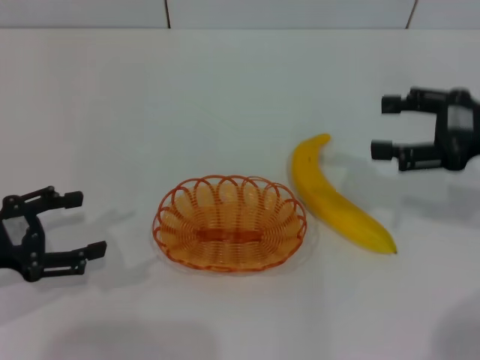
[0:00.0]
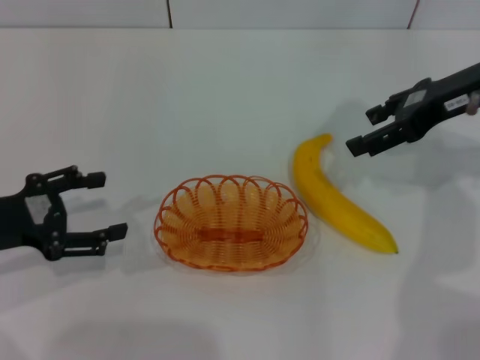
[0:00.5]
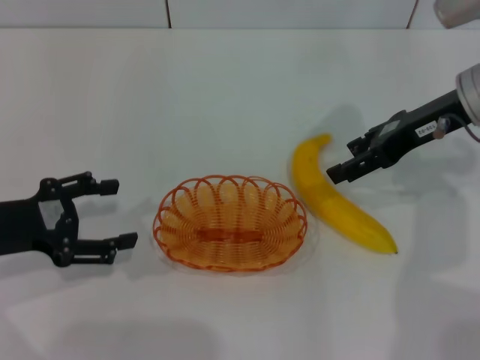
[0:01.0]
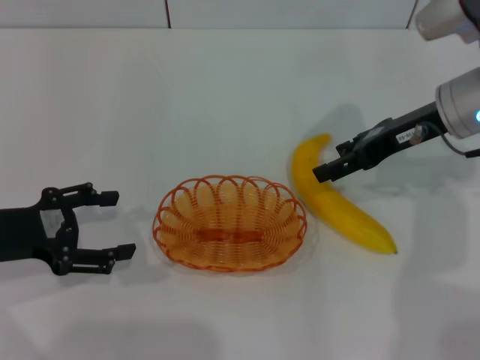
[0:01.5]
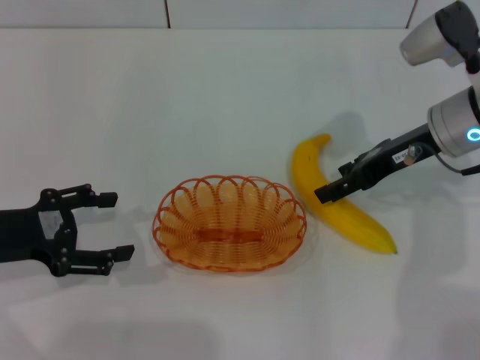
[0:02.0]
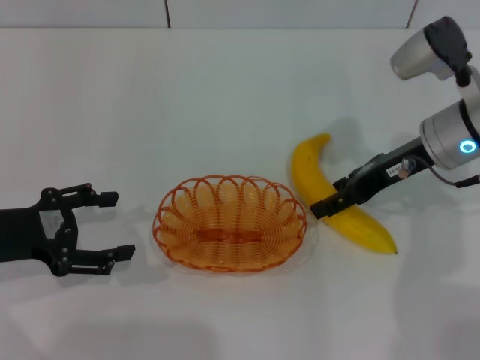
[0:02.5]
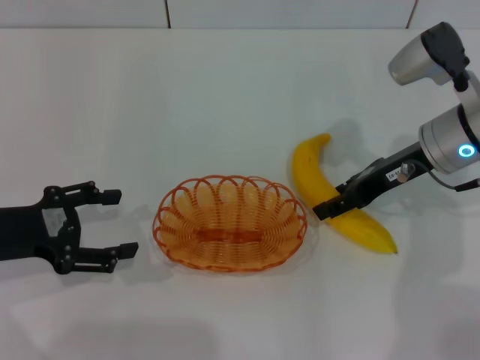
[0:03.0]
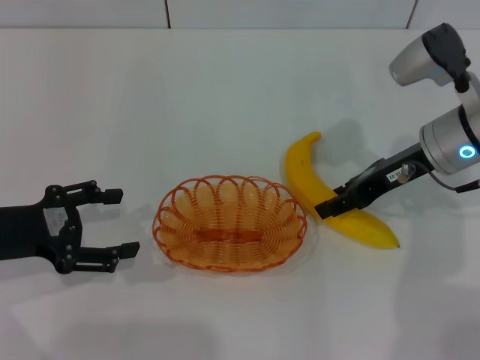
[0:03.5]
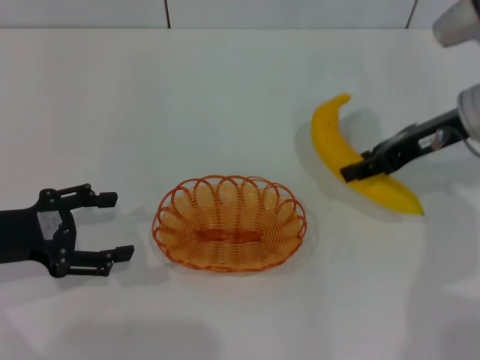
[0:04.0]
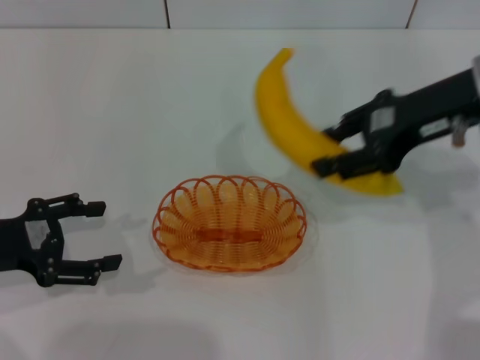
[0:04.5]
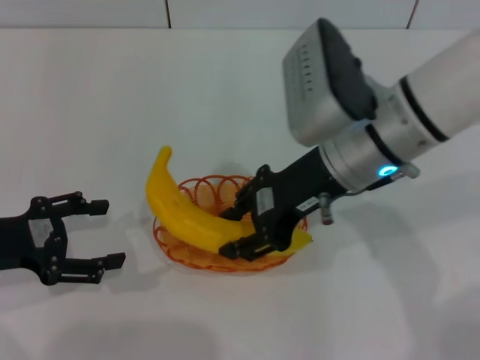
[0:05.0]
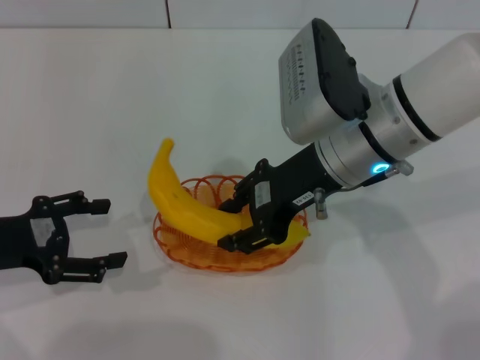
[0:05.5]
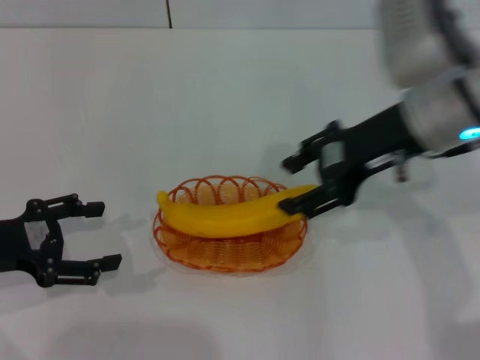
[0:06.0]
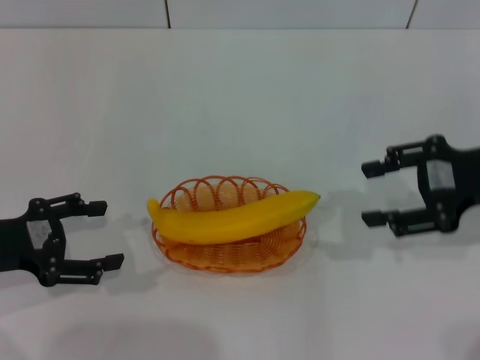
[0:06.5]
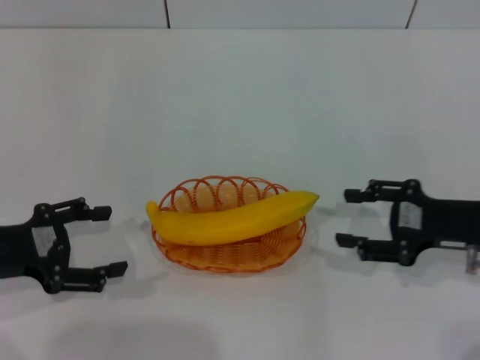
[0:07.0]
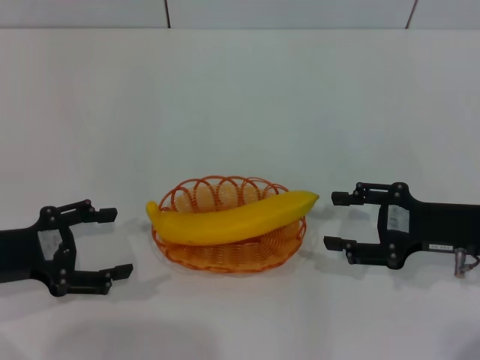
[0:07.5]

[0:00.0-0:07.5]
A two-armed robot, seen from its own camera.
Step, 0:00.0 to 0:03.5: Pick up the banana with the right gripper.
Step, 0:04.0 to 0:05.5: Place the banana into the basket with the right gripper.
0:00.0 to 0:02.0: The right gripper travels to the left and forward by approximately 10 cm.
0:02.0 to 0:04.0: The right gripper closes its fingers.
0:04.0 to 0:05.5: The right gripper is displaced to the left by roughly 15 cm.
0:05.5 to 0:07.5: The right gripper travels to the right and downward by some 20 cm, and opens its fingers.

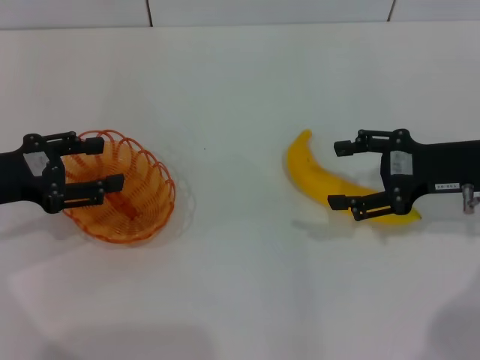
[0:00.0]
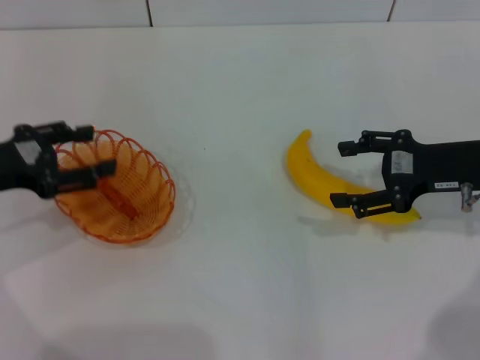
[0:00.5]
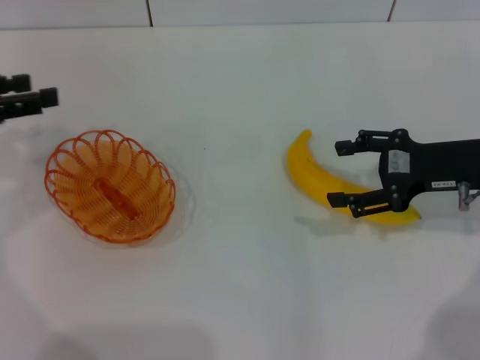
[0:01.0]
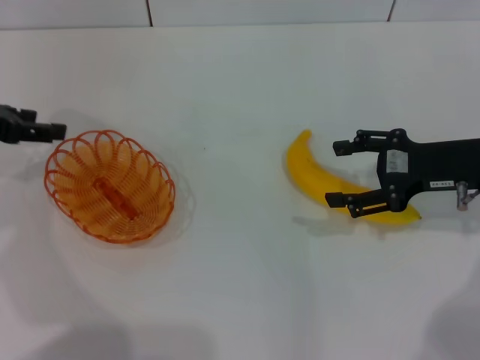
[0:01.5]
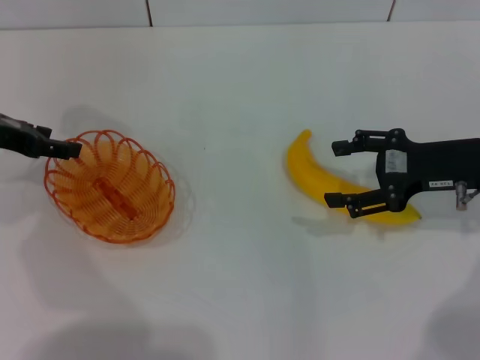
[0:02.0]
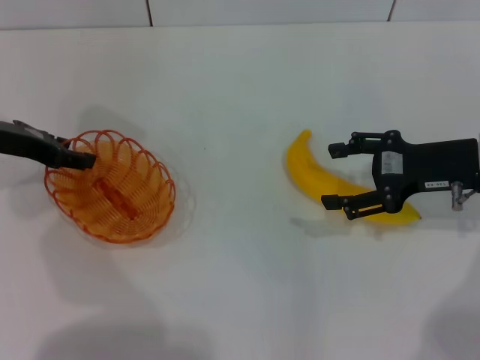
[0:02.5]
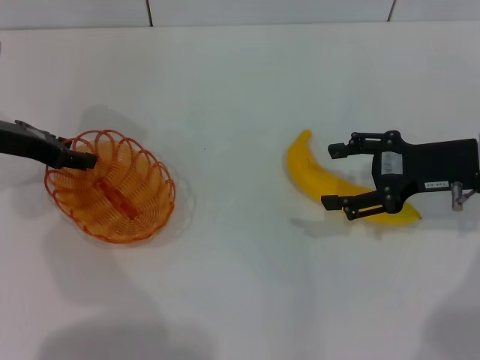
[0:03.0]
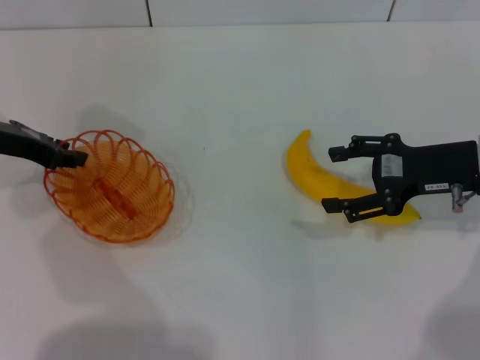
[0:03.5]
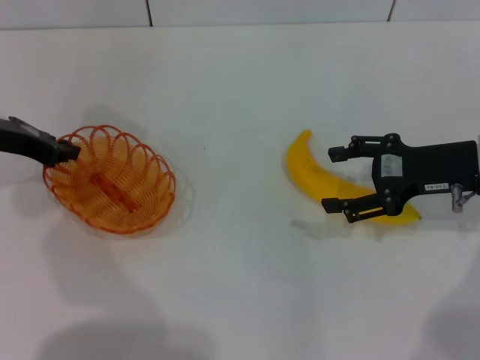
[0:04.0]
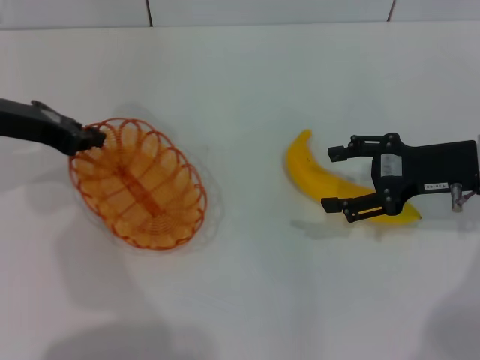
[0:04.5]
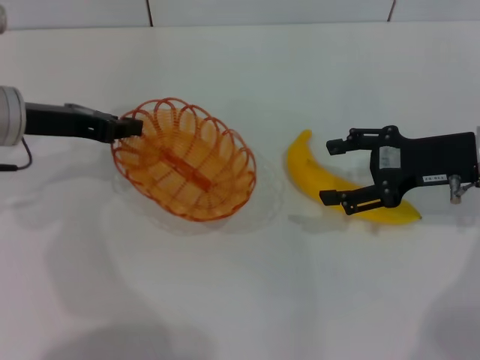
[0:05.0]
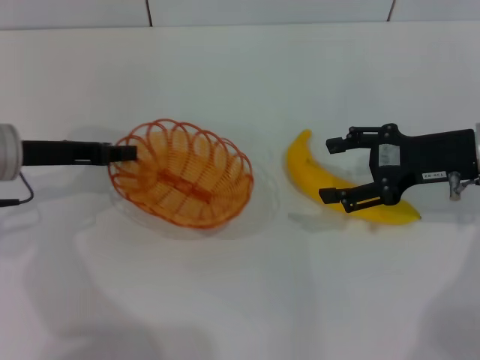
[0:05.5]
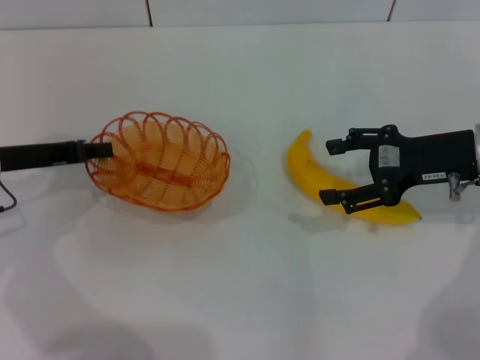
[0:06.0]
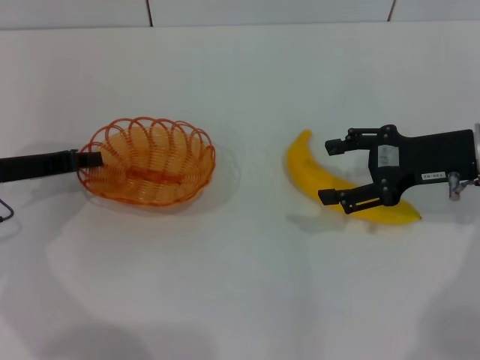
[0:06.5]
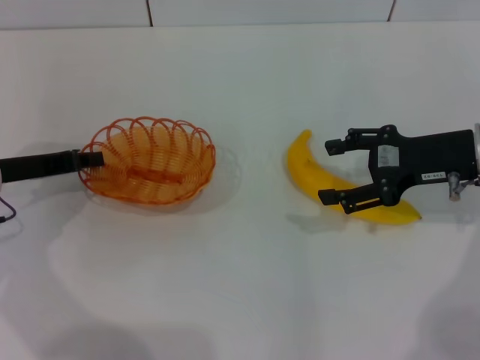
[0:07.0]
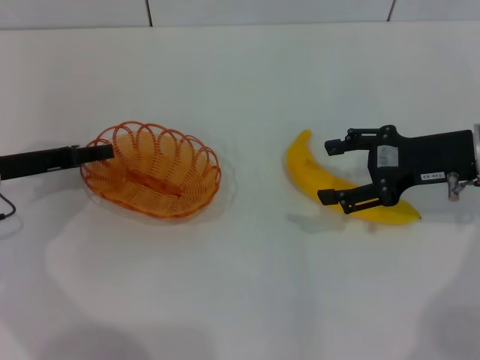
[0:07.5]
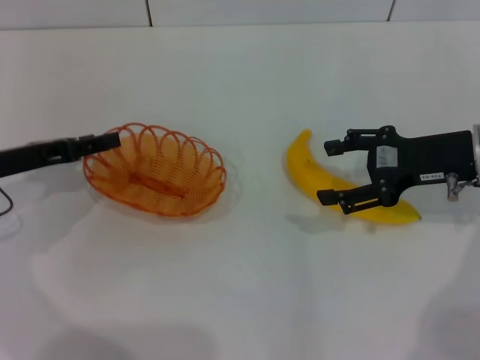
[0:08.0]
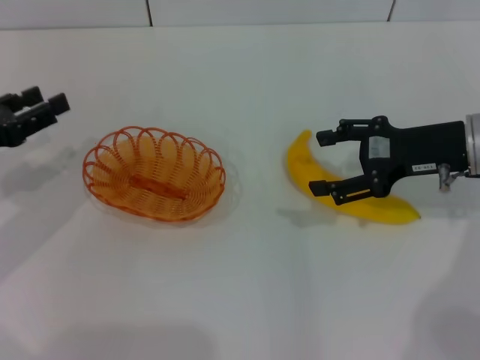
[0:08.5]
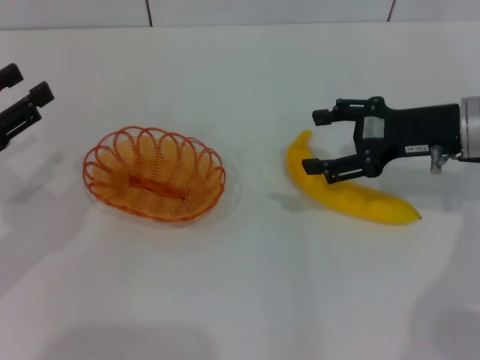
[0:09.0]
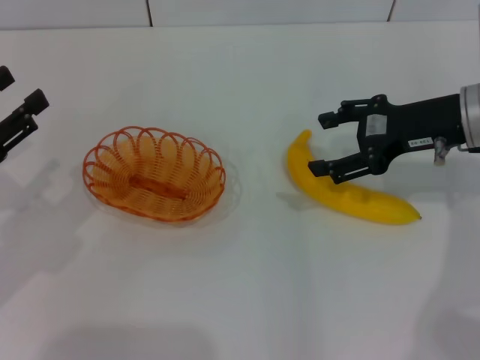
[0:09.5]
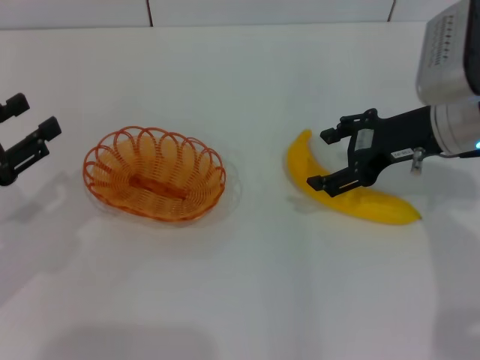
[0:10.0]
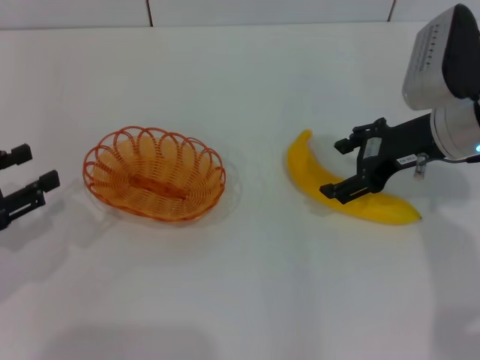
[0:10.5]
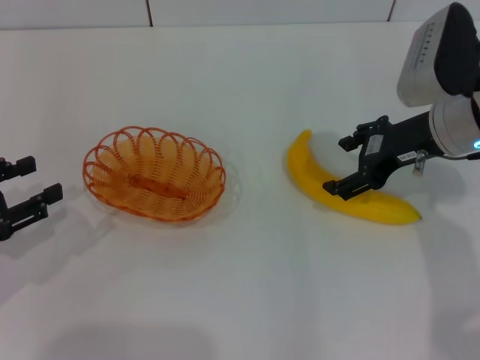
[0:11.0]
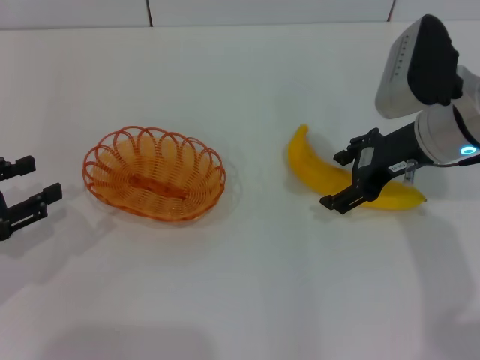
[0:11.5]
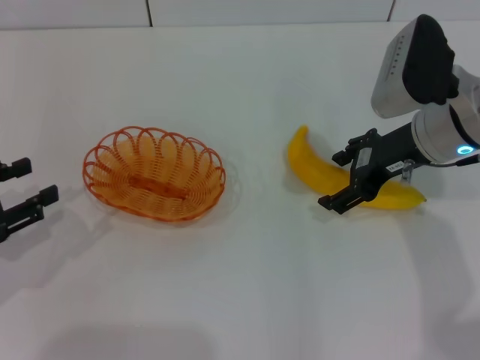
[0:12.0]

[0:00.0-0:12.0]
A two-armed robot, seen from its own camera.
Step, 0:00.0 to 0:05.5: Pick up the basket with the left gripper.
Step, 0:06.0 to 0:08.0: Place the basket in the center of view with the left gripper.
0:00.0 to 0:02.0: The left gripper shifts some 10 cm forward.
0:02.0 to 0:04.0: The left gripper closes its fingers.
0:04.0 to 0:06.0: The left gripper moves approximately 5 cm.
0:06.0 to 0:08.0: The left gripper opens.
0:08.0 to 0:10.0: The right gripper shifts by approximately 5 cm; the left gripper heads backward, covering roughly 5 cm.
0:10.0 to 0:12.0: The grippers move only a little.

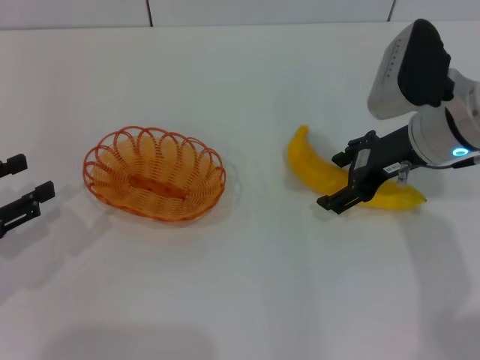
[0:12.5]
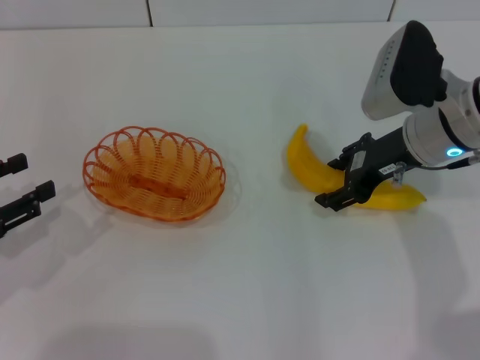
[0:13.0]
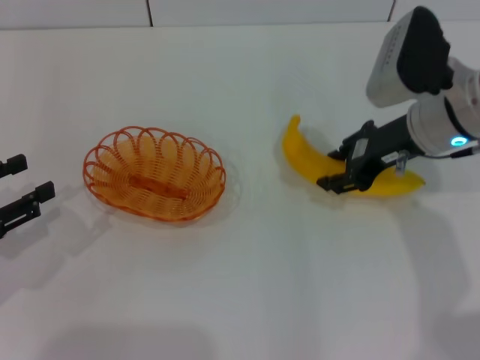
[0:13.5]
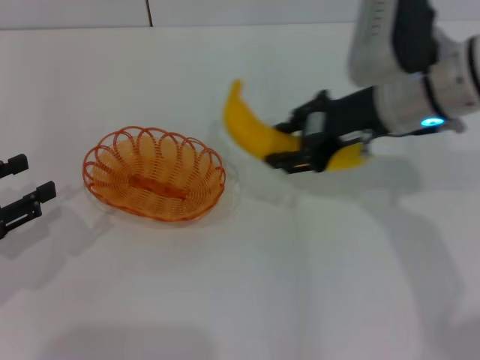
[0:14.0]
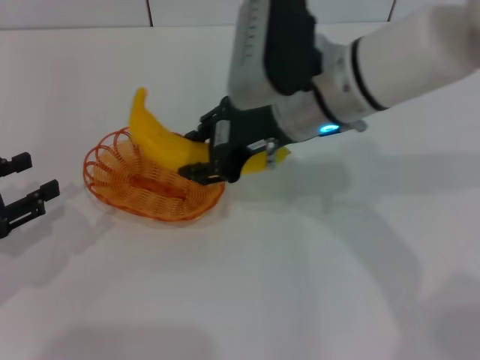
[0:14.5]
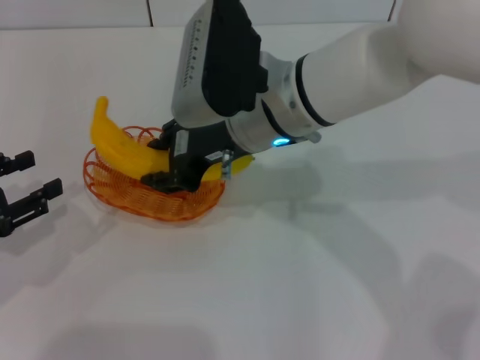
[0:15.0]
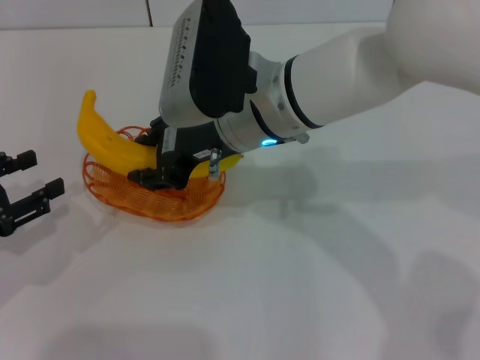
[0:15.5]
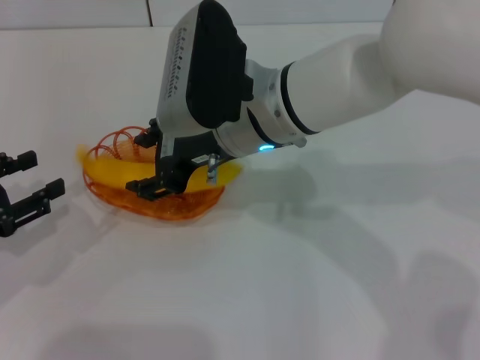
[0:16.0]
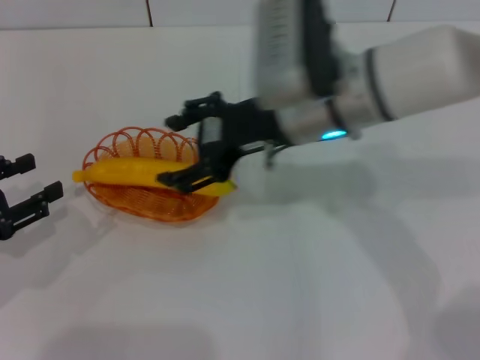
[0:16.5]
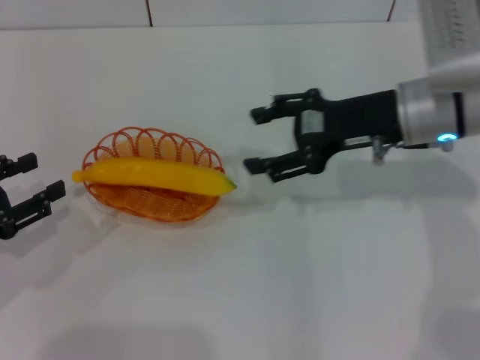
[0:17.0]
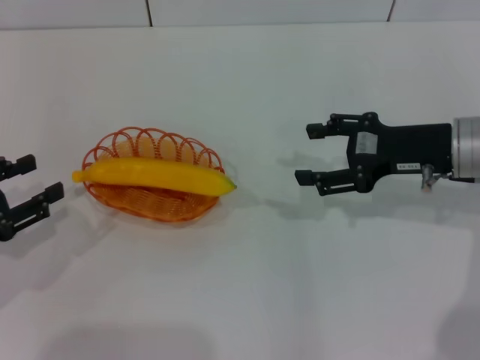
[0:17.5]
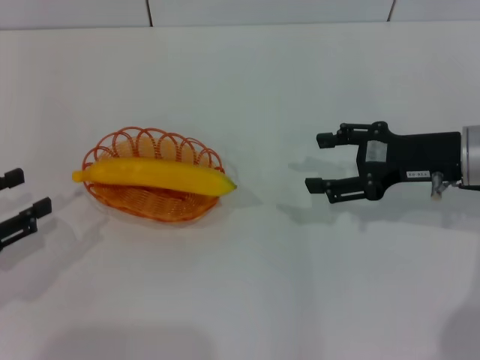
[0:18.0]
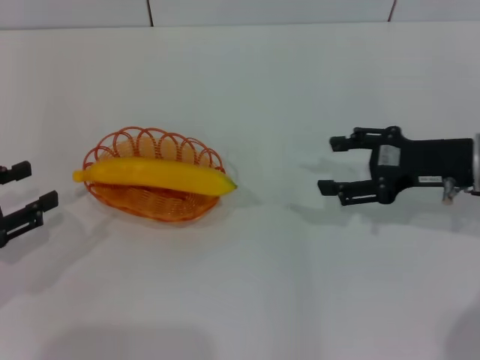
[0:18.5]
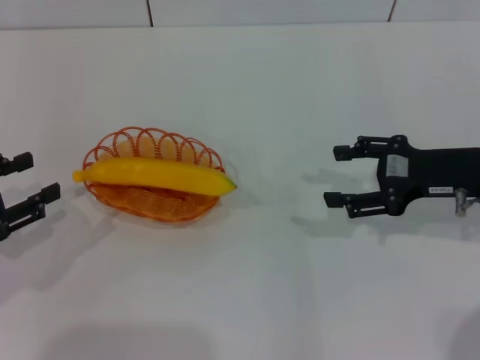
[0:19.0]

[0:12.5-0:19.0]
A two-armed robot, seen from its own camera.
Step, 0:14.0 to 0:18.0: Place the banana into the basket with the right gripper.
0:12.5 to 0:14.5: The right gripper moves to the left, about 15 cm, and closes its fingers.
0:14.5 to 0:17.0: The right gripper goes roughly 10 cm to the right, and opens.
0:17.0 to 0:19.0: The right gripper heads to the right, covering roughly 10 cm.
